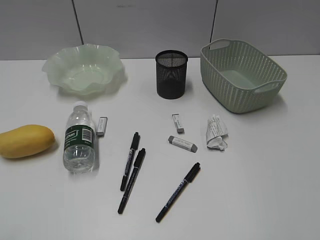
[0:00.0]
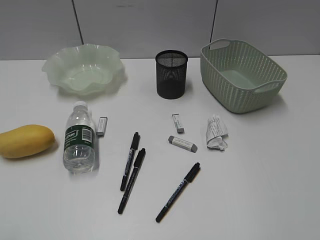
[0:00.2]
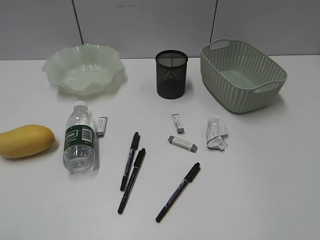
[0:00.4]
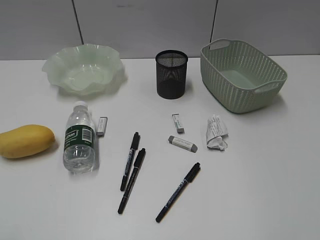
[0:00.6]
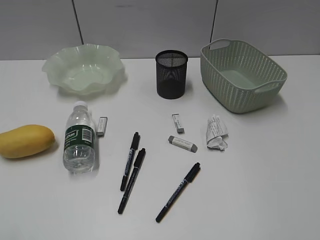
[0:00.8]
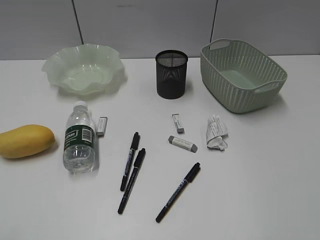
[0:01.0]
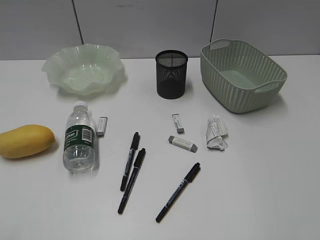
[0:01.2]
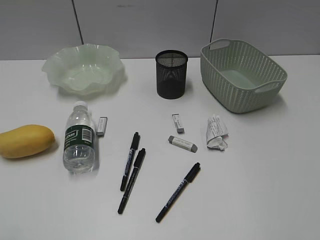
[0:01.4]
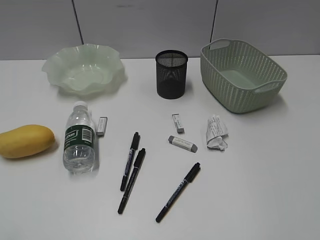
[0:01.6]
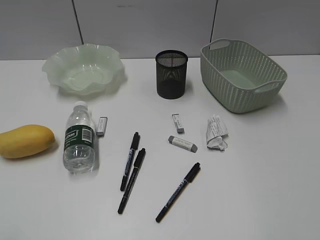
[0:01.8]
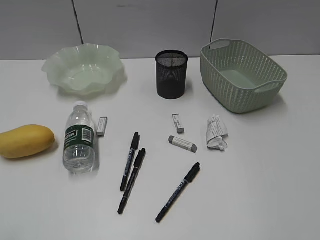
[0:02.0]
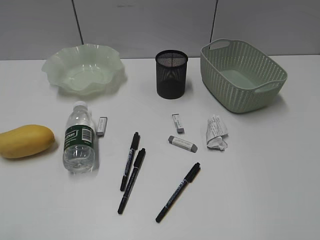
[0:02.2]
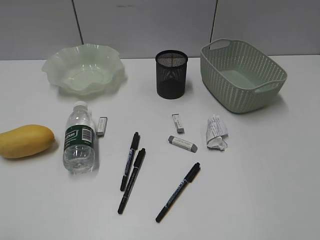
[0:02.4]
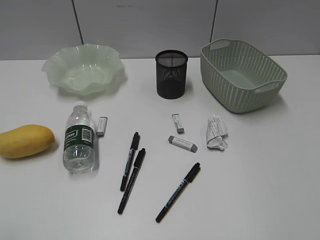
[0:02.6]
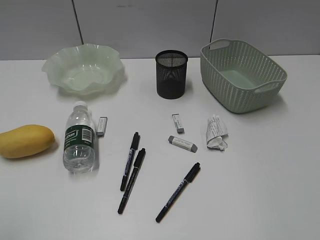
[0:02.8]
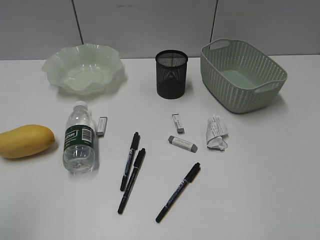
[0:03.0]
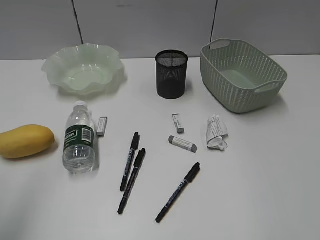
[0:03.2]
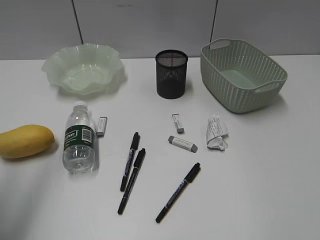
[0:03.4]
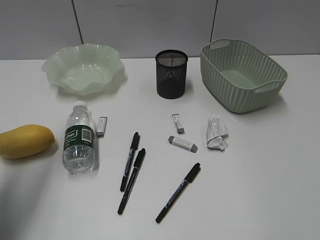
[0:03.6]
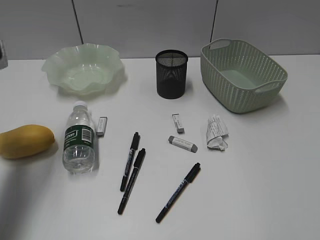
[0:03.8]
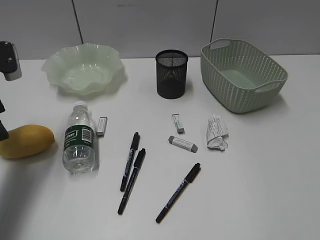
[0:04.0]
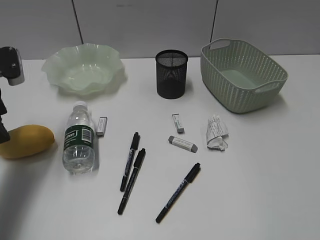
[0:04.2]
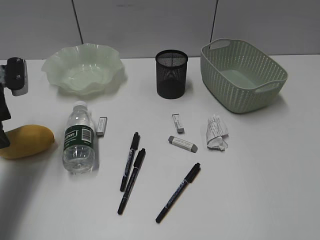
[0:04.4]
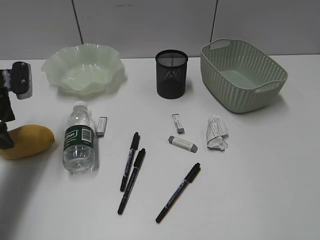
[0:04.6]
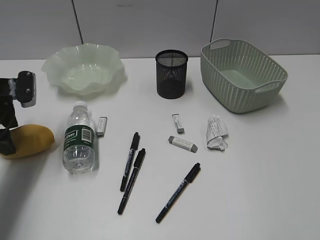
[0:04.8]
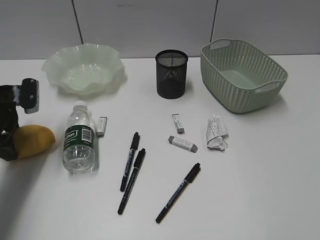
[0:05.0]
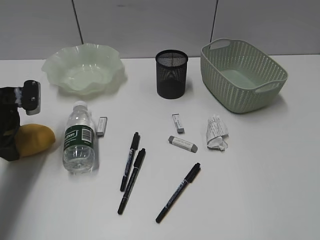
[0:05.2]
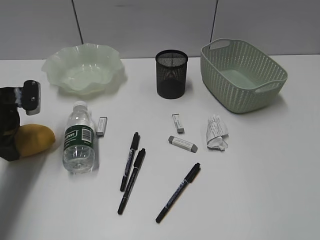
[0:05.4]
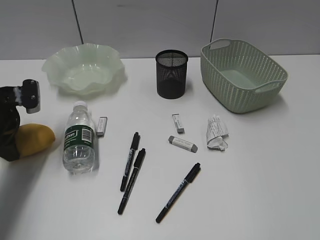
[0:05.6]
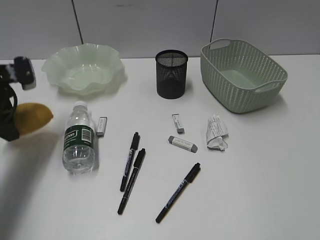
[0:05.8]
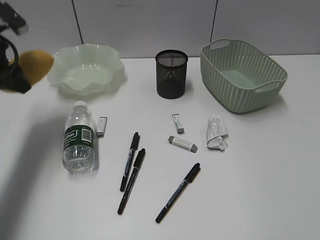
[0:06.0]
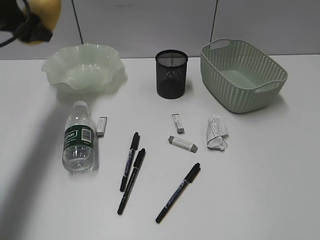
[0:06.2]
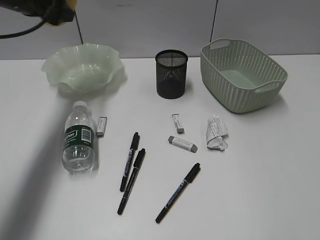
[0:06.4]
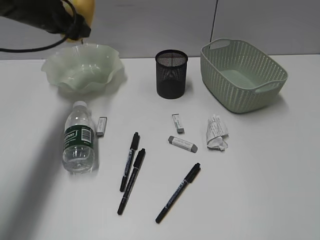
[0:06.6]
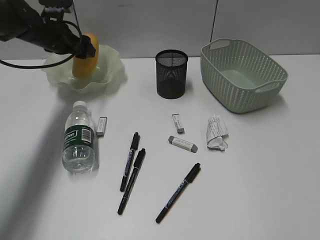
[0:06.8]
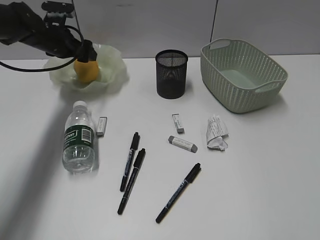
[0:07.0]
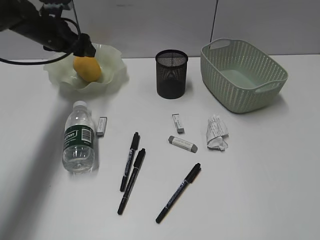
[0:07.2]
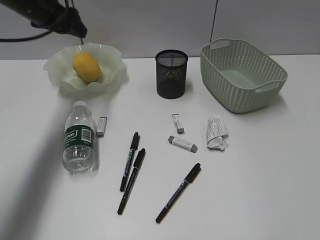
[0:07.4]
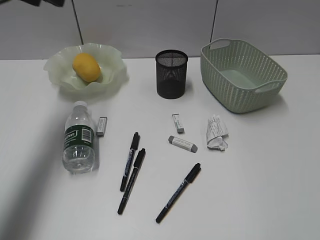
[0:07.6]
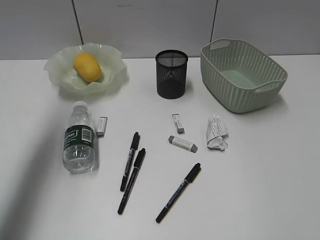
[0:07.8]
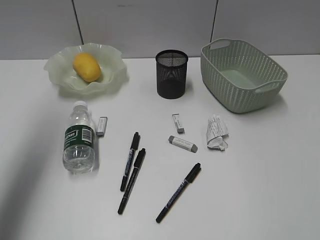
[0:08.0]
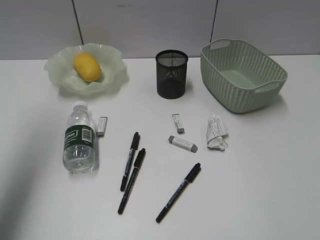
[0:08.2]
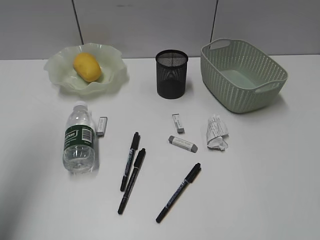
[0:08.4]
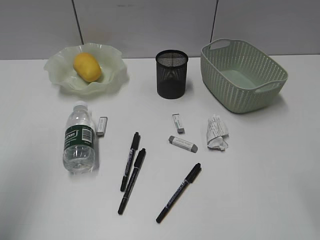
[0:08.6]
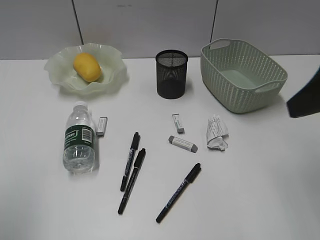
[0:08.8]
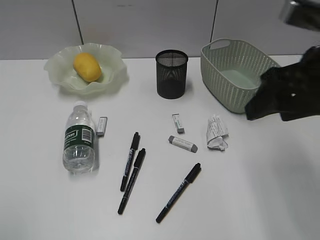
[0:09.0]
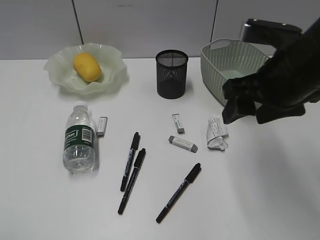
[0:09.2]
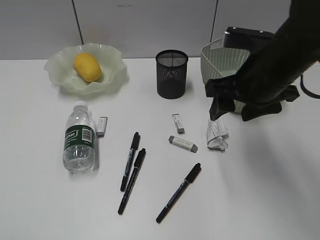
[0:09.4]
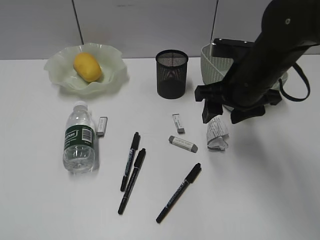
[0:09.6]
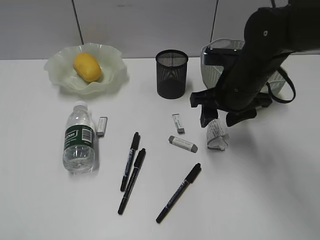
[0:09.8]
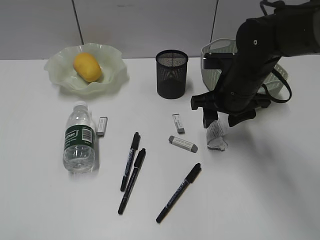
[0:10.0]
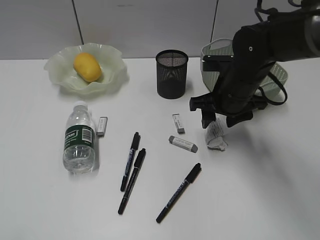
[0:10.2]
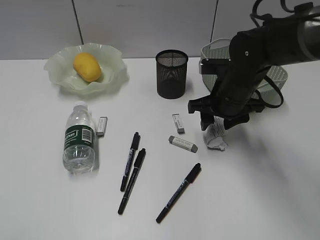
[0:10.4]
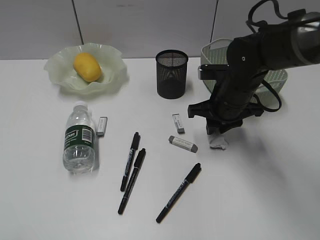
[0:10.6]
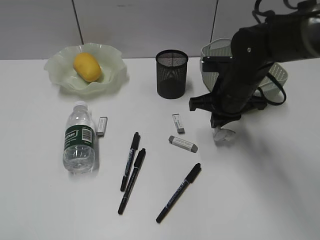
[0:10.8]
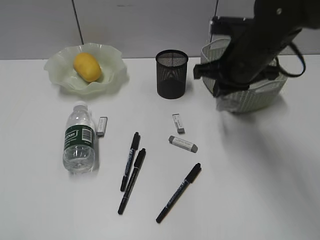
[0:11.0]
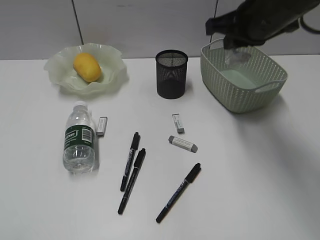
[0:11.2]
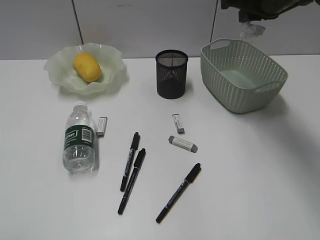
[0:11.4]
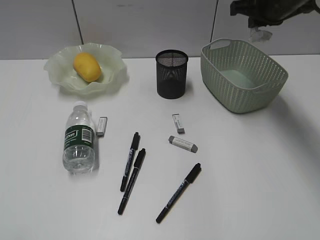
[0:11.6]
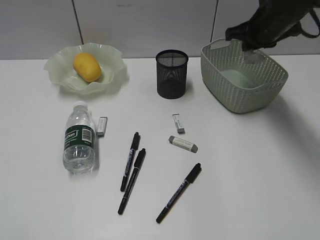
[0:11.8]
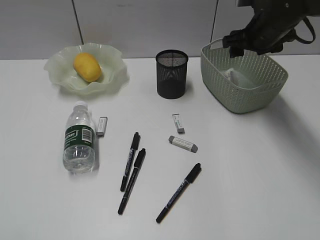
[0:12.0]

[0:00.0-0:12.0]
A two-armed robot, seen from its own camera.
Step, 0:03.8 to 0:05.4: Grasp the mango with left gripper.
Step, 0:05.6 to 0:07.2: Place the mango in the plate with left gripper.
Step, 0:07.4 to 0:10.6: Grasp the waste paper with right gripper.
0:03.0 to 0:04.4: The left gripper travels forward and downward by approximately 30 cm.
0:04.4 to 0:06.0: The left gripper changes place by about 5 cm.
0:06.0 to 0:07.6: The left gripper moves up and down over some 15 cm, changing direction 2 times.
0:07.6 to 0:09.0: The left gripper heads backward, covering about 35 cm. Meanwhile the right gripper travels forward and to the left by approximately 25 cm, and opens up.
0:09.0 to 0:10.4: The left gripper travels backward by about 5 cm. Meanwhile the right gripper moves downward, forward and to the left, roughly 20 cm.
0:10.4 to 0:12.0: The right gripper is displaced forward, upward and to the right by approximately 15 cm, and closes, then opens again.

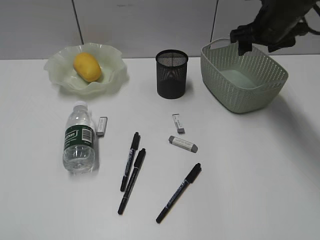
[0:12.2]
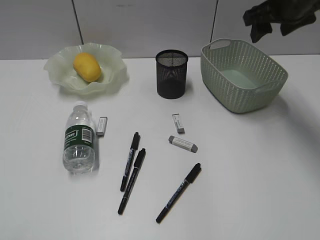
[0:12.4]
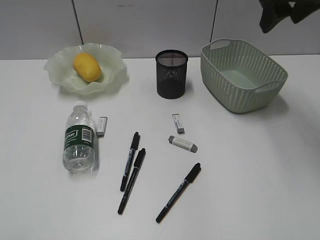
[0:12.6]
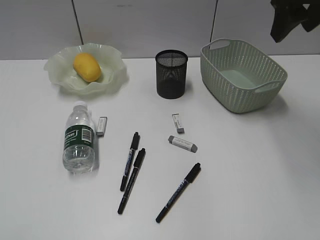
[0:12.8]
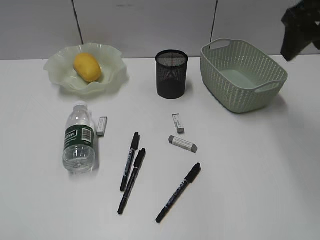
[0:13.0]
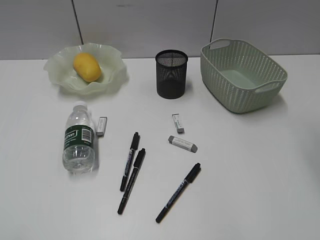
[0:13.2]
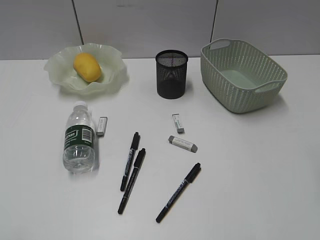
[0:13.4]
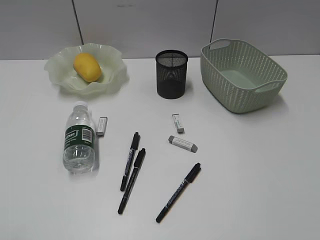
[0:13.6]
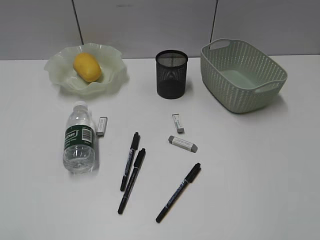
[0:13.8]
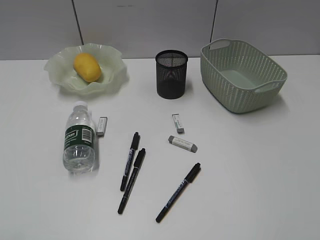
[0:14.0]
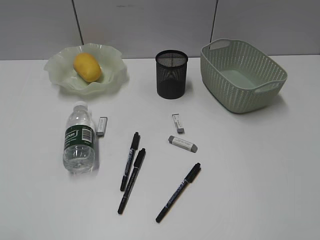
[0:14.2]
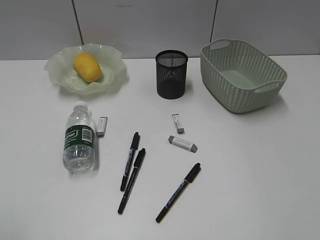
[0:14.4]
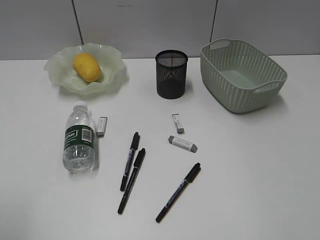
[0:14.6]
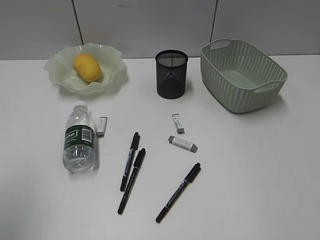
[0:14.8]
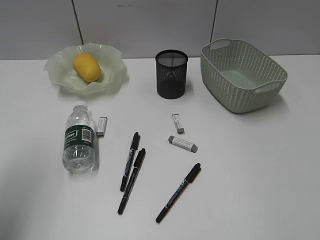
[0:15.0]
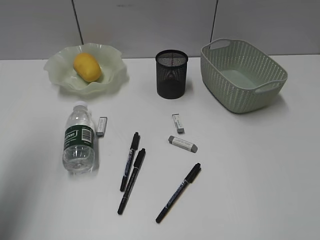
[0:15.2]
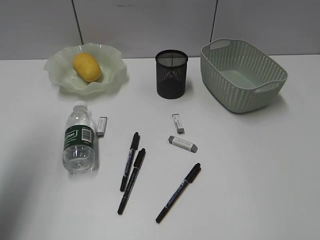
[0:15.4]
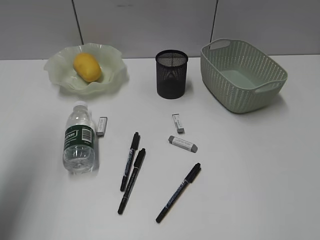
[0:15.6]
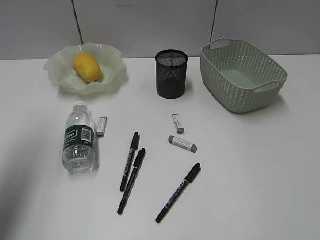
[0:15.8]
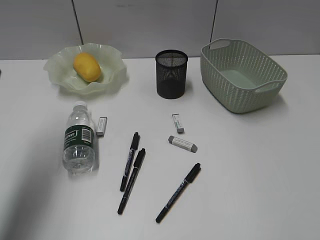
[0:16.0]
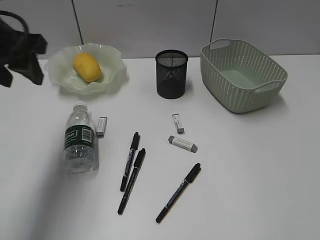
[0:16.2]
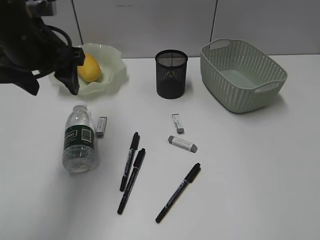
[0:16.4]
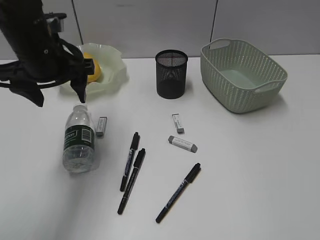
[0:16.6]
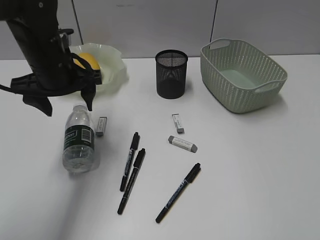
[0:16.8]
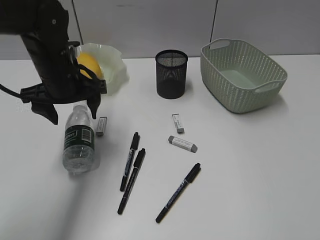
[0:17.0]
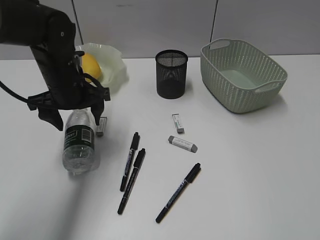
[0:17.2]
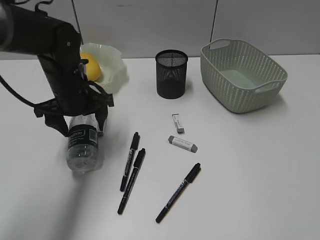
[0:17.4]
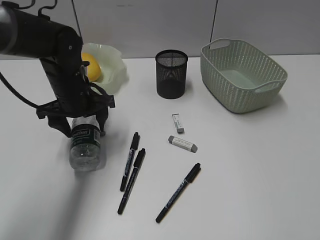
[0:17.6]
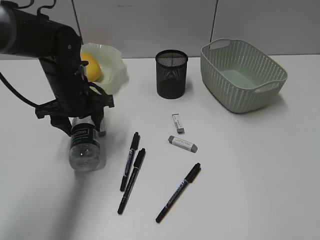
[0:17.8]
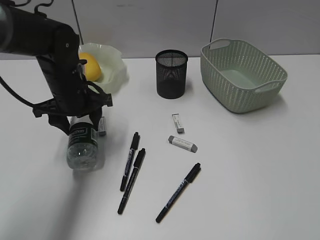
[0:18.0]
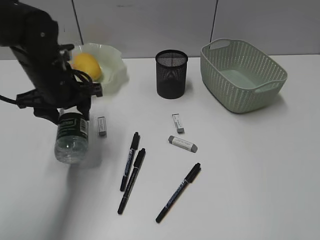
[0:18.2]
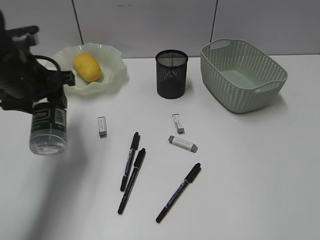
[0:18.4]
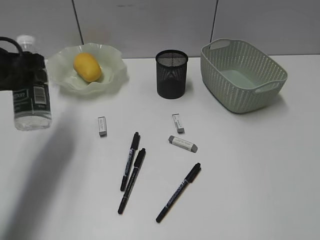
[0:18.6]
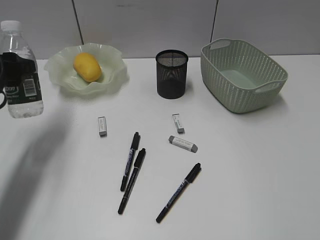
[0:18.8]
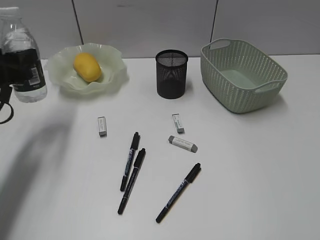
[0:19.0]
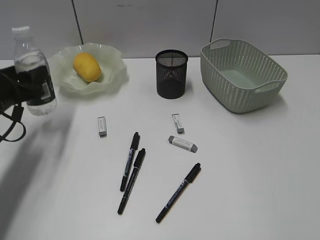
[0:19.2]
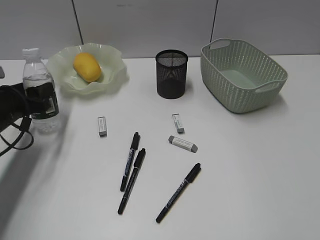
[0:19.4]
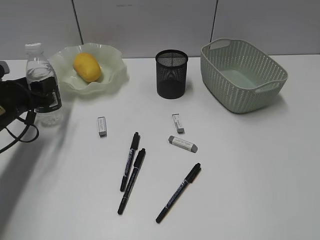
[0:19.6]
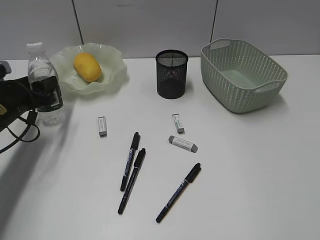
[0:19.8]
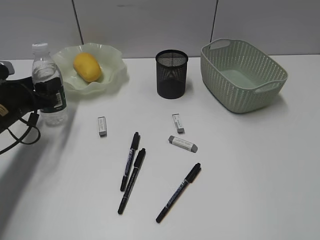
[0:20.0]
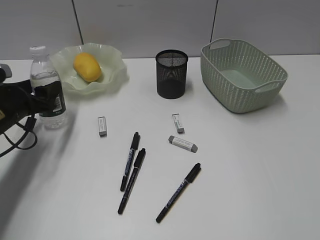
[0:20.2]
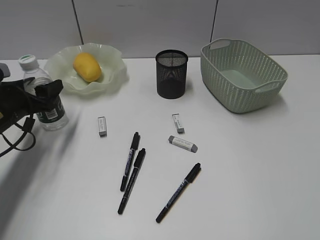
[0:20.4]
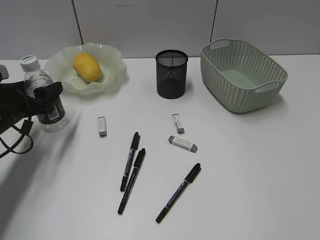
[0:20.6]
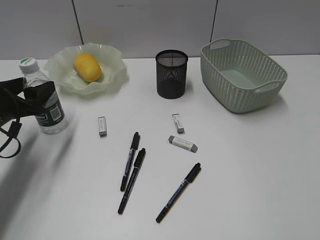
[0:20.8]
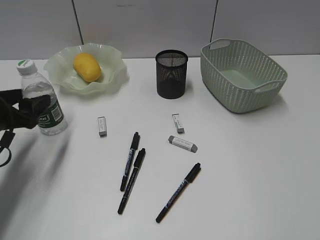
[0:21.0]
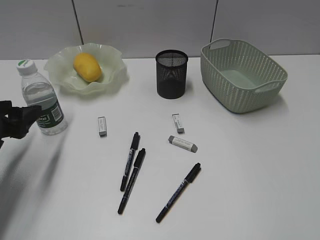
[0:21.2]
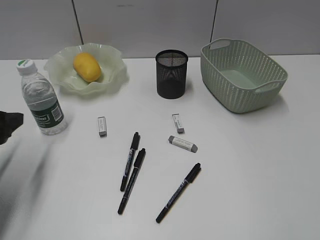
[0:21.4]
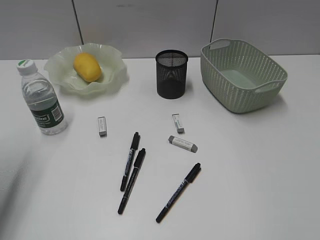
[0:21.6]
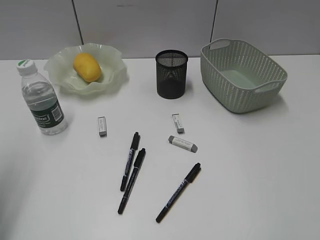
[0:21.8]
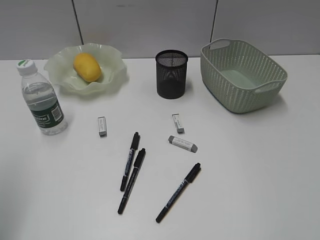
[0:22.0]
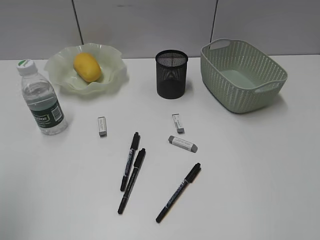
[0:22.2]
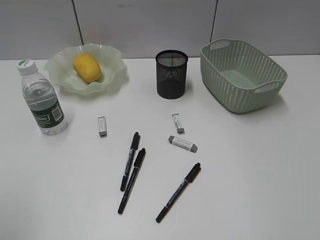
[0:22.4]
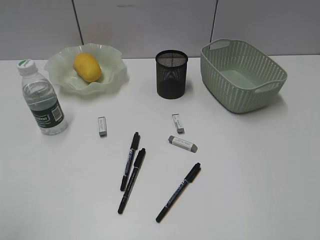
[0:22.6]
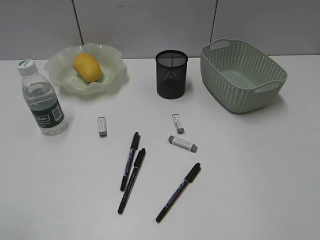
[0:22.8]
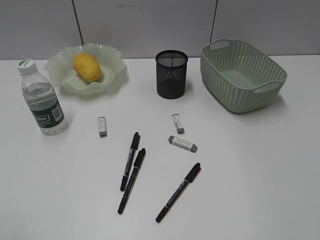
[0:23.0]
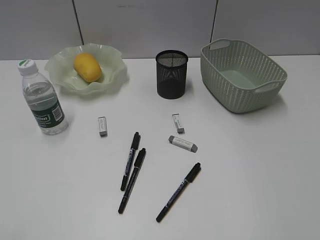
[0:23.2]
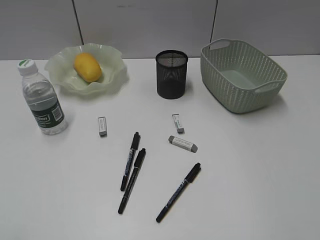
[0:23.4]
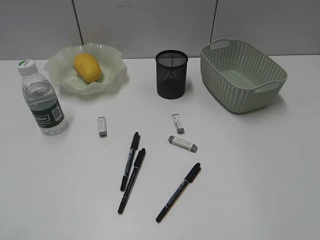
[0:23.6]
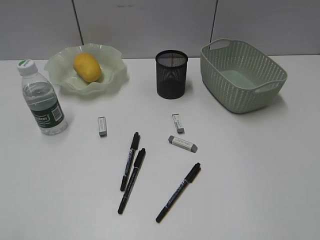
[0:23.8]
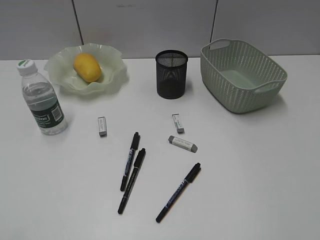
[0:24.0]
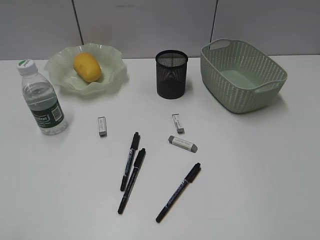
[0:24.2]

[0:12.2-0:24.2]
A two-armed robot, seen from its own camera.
Step, 0:12.2 to 0:17.8: Grasp the bottle with left gripper.
Step, 0:18.0 to 0:21.0: Stand the bottle with left gripper.
0:12.2 to 0:13.8: The right gripper shifts roughly 35 cm backward.
0:13.8 to 0:15.2: The left gripper goes roughly 25 cm forward.
0:15.2 to 0:16.6: The left gripper is displaced to the right, forward and downward by about 20 cm.
0:16.6 to 0:18.2: The left gripper is displaced downward by approximately 5 cm.
0:18.2 to 0:19.8: The left gripper travels to the left and downward by roughly 15 cm.
0:19.8 to 0:21.2: The left gripper shifts roughly 10 cm backward.
0:21.2 to 0:22.6: The left gripper heads upward and backward, covering some 30 cm.
